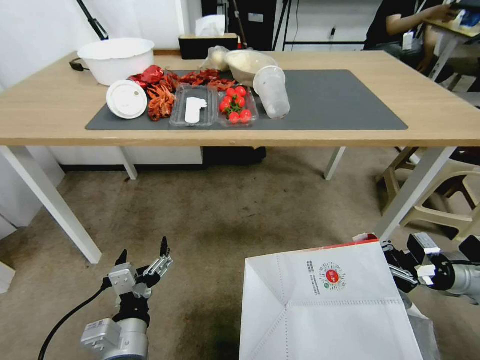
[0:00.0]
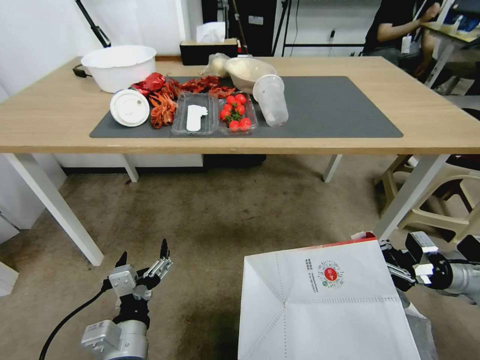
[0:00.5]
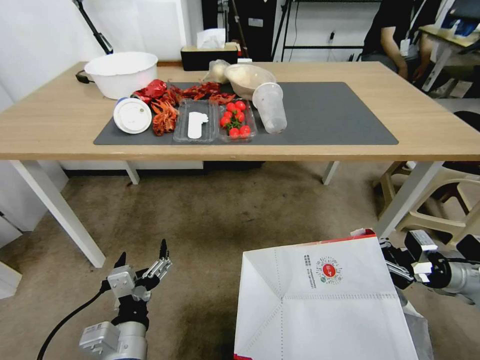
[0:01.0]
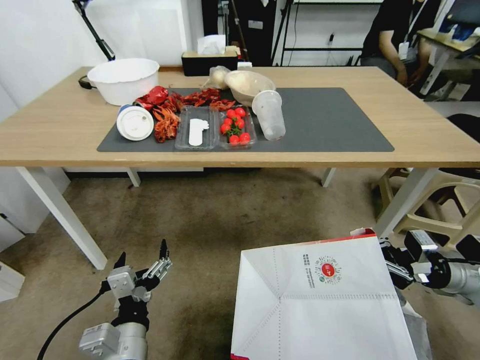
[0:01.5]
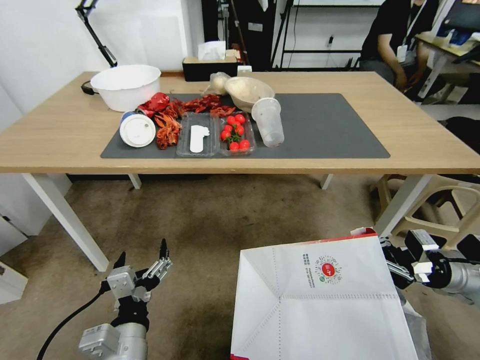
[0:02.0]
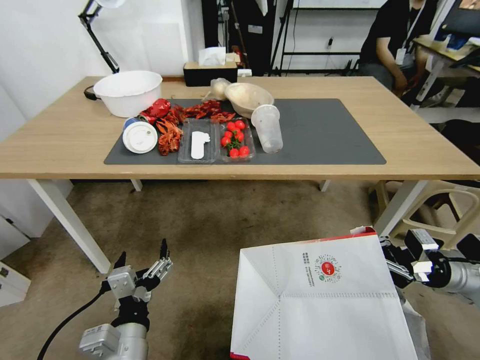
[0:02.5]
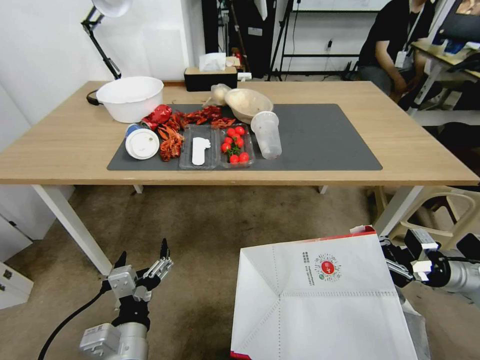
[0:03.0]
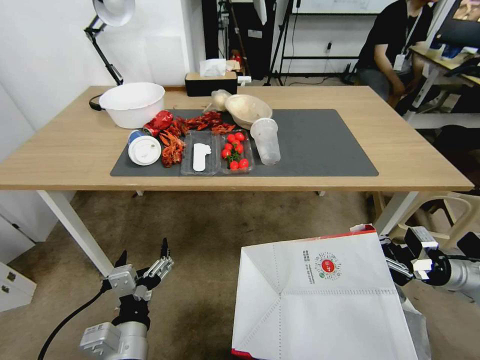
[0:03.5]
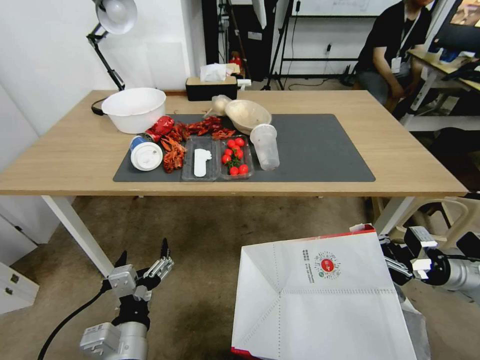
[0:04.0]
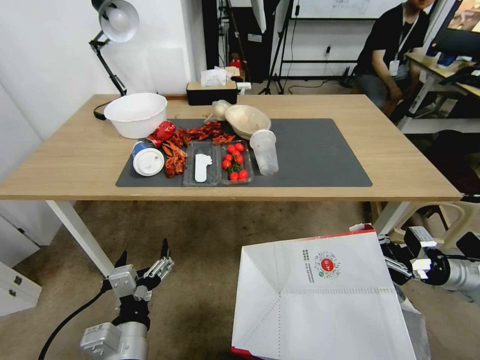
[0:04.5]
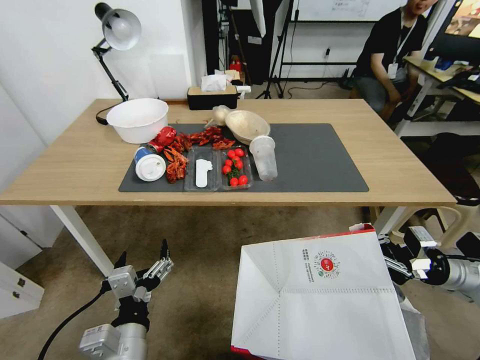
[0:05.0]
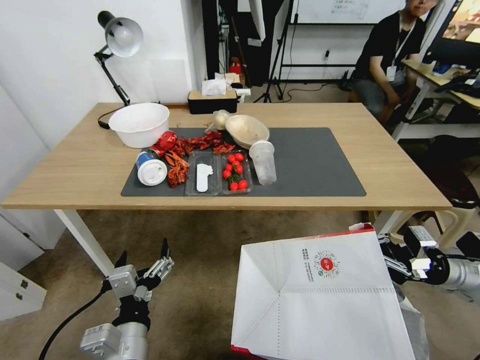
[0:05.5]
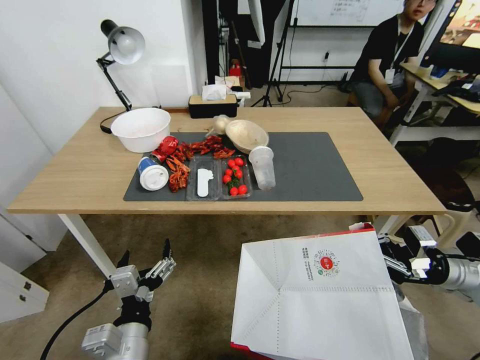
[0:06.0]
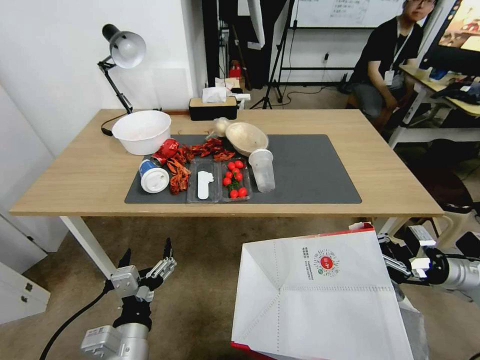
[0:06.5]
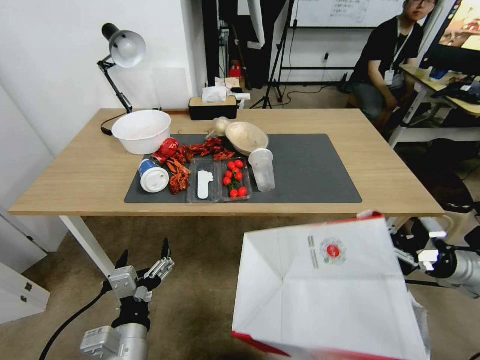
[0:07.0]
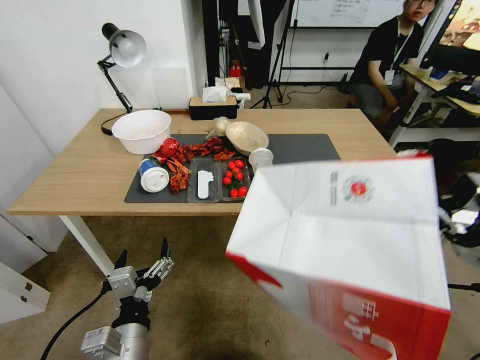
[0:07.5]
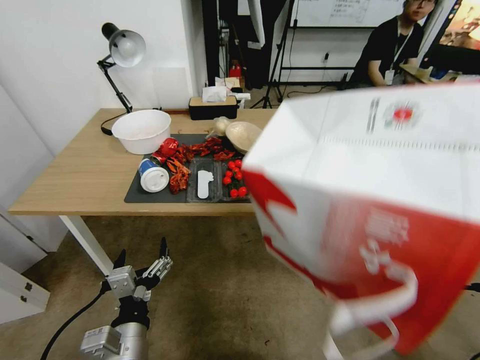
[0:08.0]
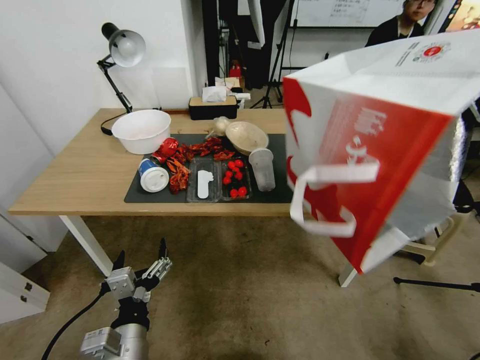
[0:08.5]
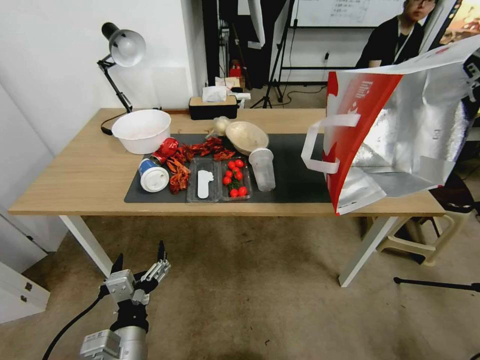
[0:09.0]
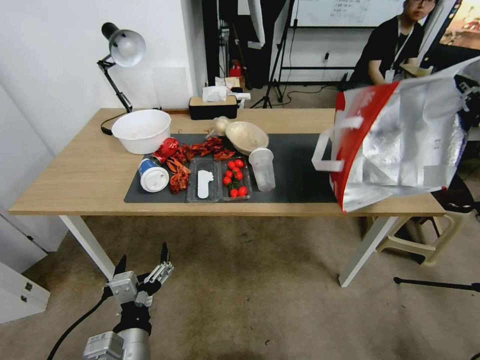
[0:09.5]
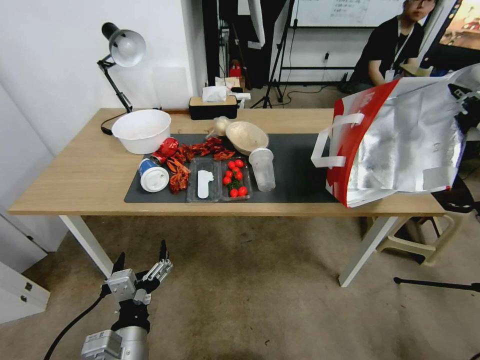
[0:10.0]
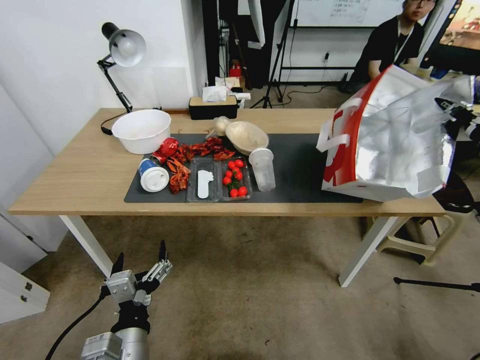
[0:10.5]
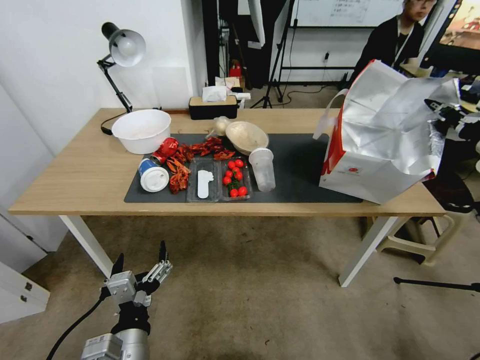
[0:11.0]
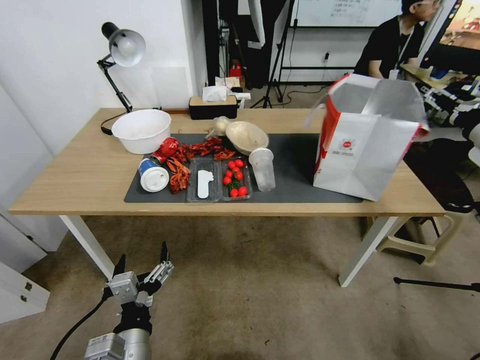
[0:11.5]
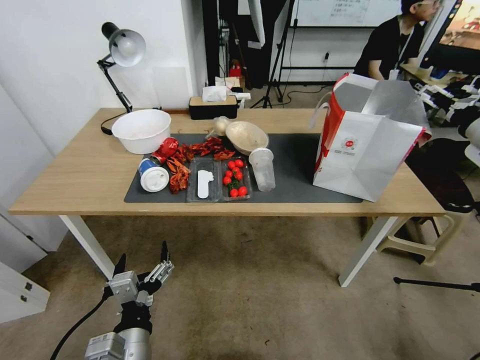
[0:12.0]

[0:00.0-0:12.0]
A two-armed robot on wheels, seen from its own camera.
Task of the whole recording: Pick up the food delivery bag from the floor and place it on the table.
0:06.0 to 0:08.0: The right gripper goes about 15 cm upward.
0:08.0 to 0:10.0: The right gripper is displaced upward and forward by roughly 10 cm.
0:10.0 to 0:12.0: The right gripper is displaced forward by some 10 cm, and opens.

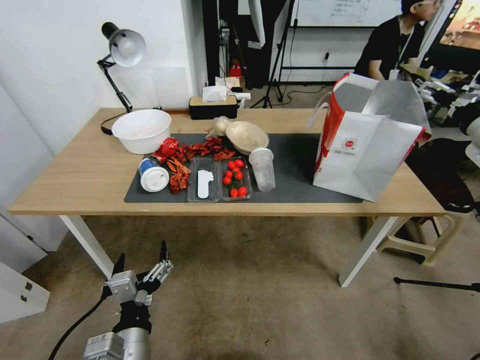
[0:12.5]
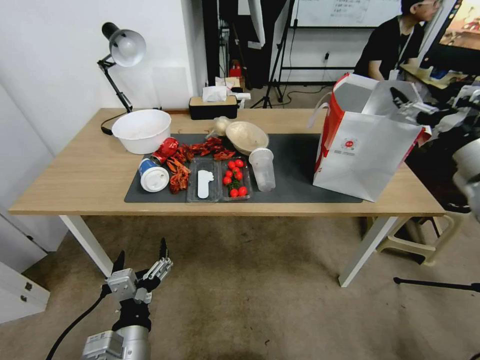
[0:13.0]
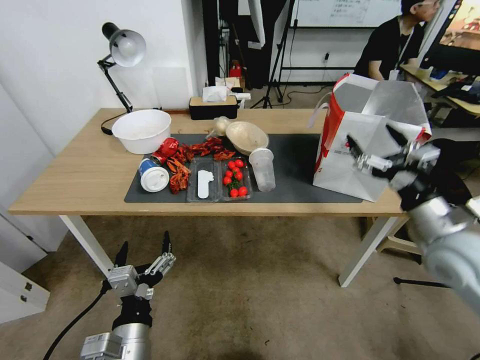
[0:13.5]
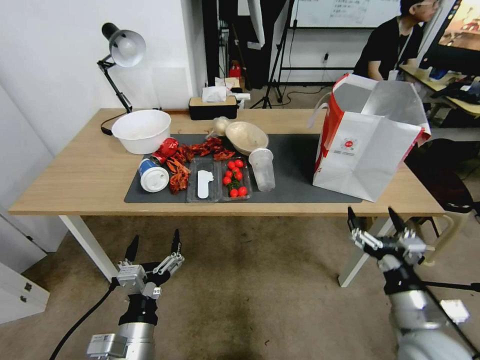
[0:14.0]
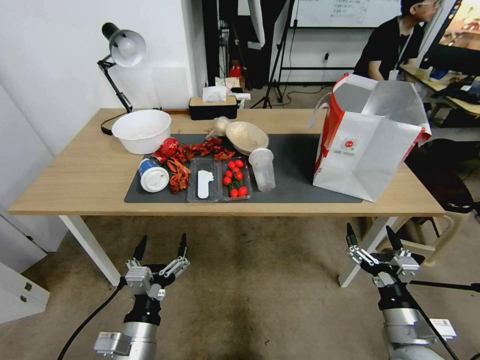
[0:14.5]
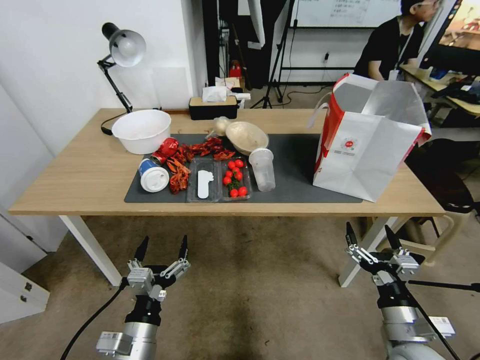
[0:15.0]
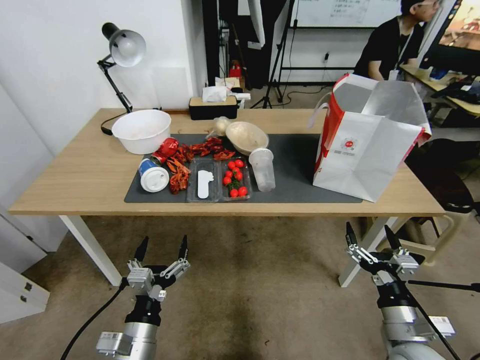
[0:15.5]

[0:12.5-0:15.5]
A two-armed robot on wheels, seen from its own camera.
Task of the whole recording: Pick up the food delivery bag from the floor and place it on the table.
0:12.5 to 0:14.0: The right gripper heads backward, downward and to the left, covering some 40 cm.
0:14.0 to 0:15.5: The right gripper travels downward by approximately 5 cm.

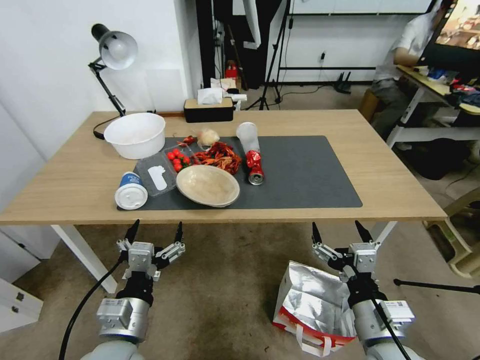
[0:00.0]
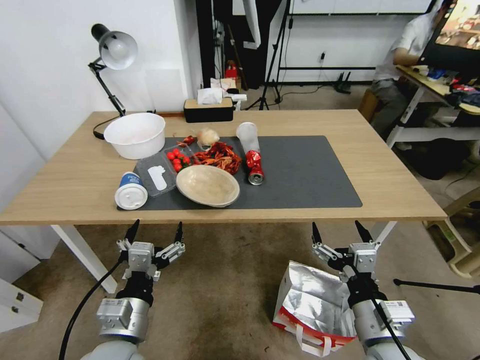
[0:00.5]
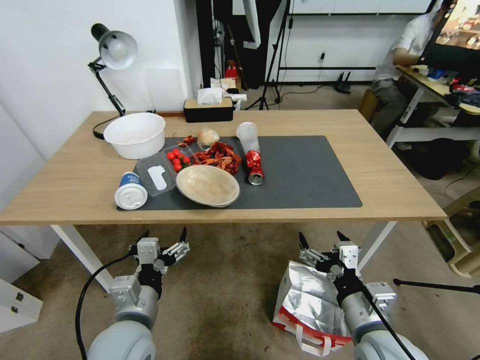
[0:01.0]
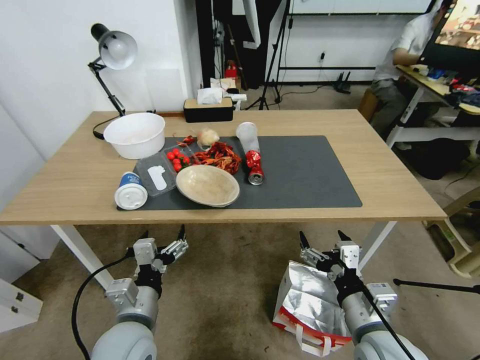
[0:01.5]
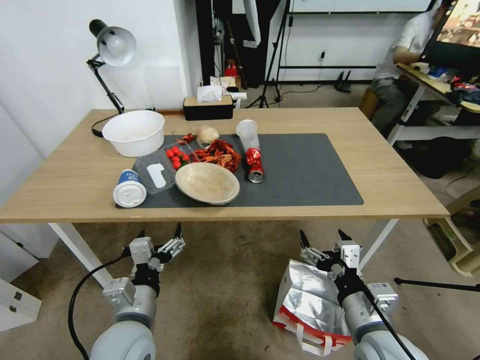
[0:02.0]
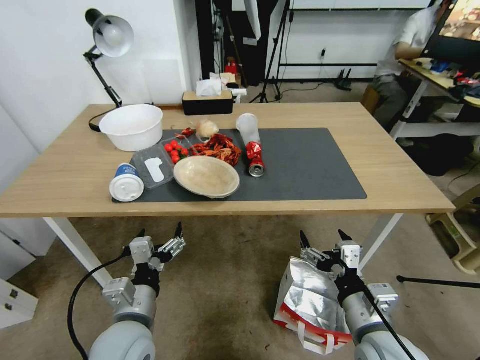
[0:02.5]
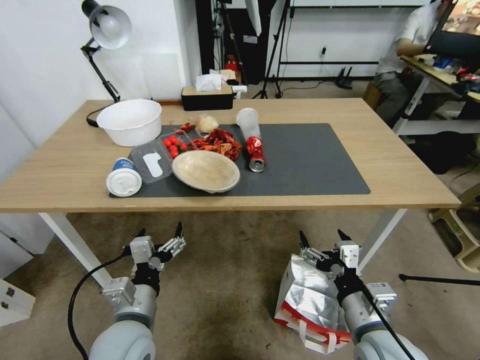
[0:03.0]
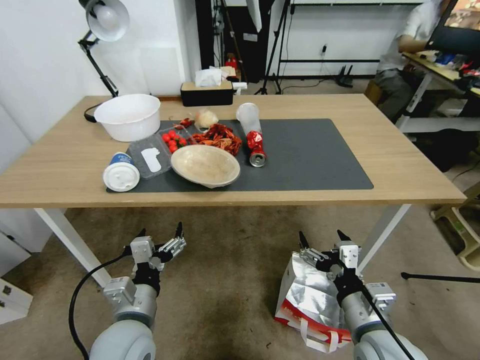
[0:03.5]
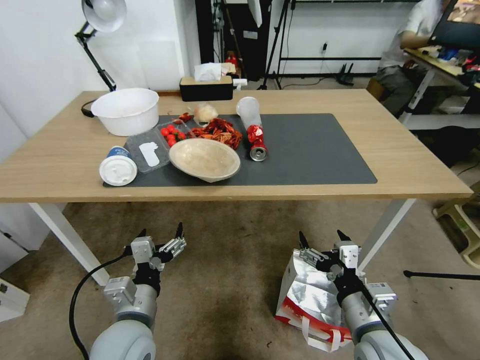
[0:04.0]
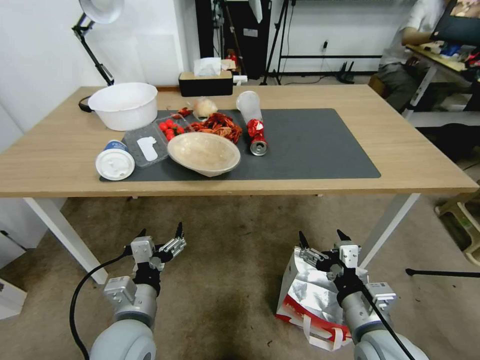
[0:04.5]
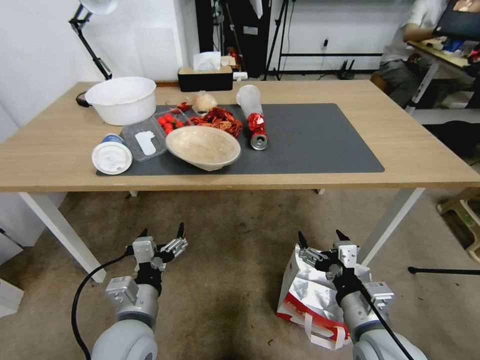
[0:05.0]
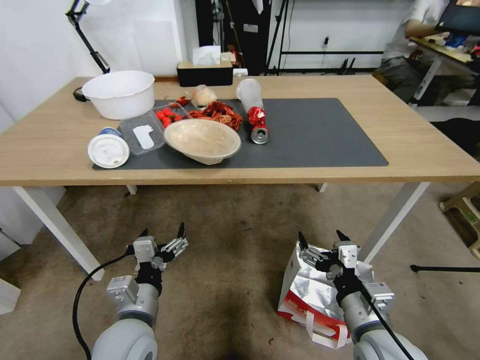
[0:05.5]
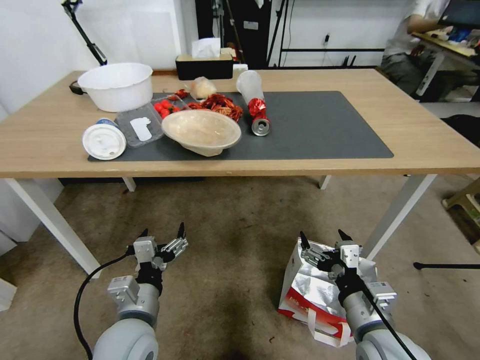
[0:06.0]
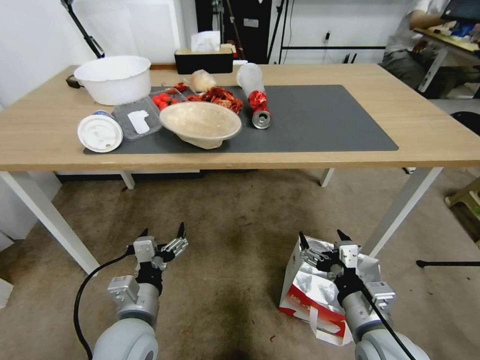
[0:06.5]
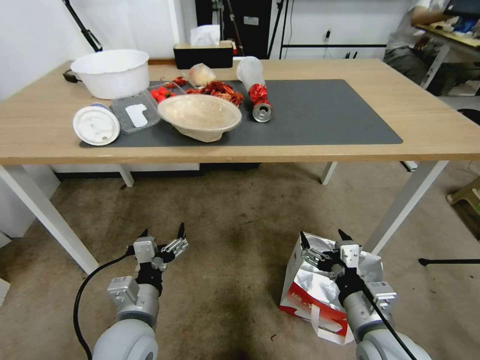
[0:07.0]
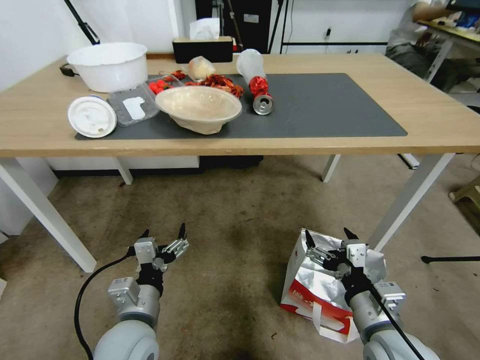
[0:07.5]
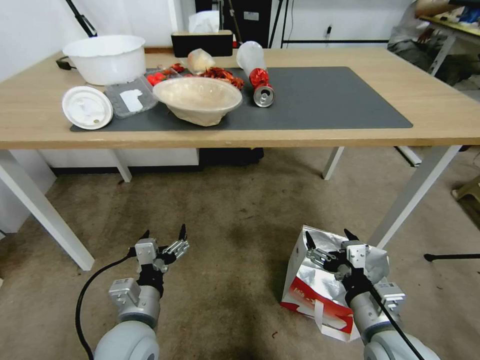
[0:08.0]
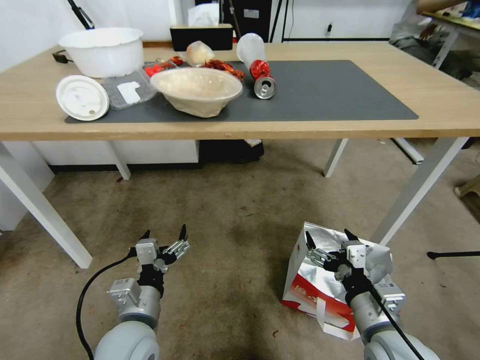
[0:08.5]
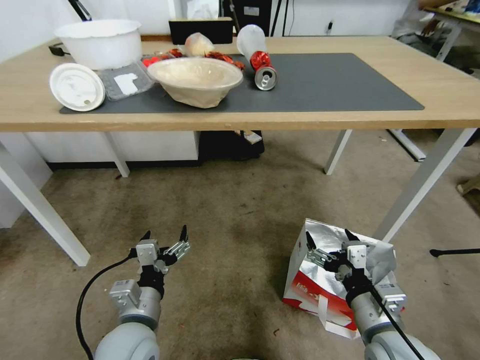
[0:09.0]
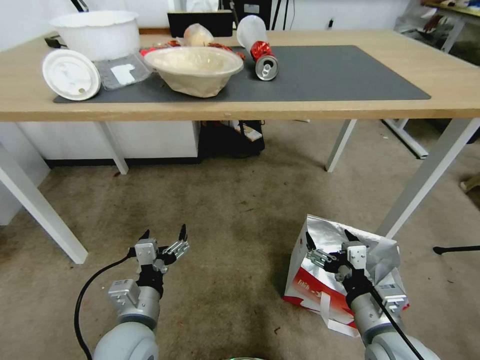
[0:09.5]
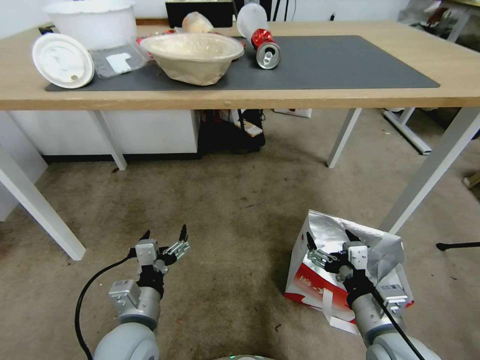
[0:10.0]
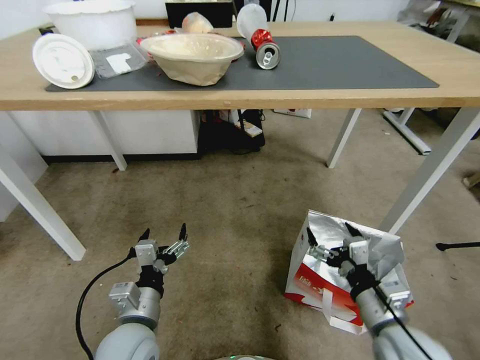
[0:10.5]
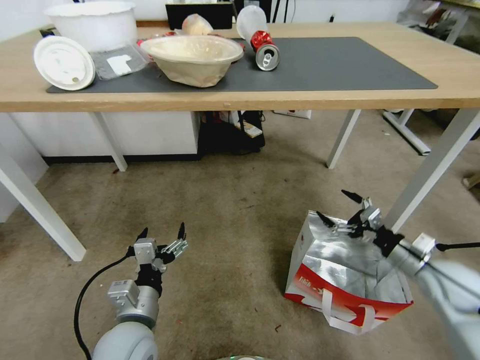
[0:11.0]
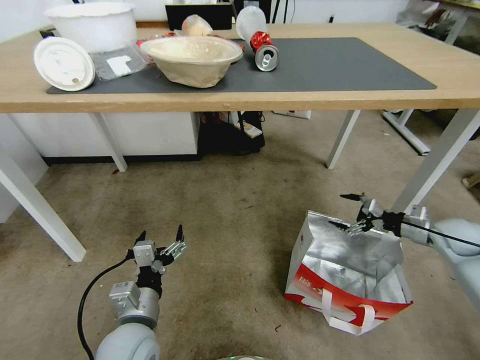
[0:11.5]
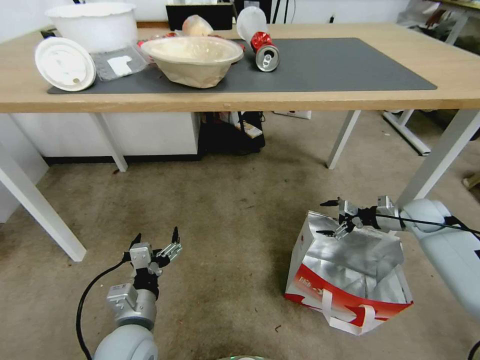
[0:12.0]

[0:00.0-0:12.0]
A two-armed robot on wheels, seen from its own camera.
Task of the whole recording: Pick up the food delivery bag from the floor and place it on the table.
0:10.0 to 0:12.0: The right gripper is displaced forward and to the right by some 40 cm.
